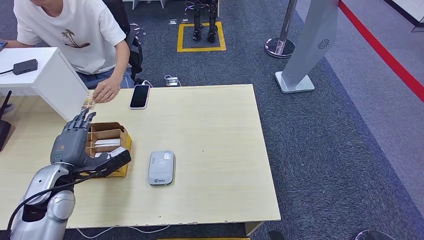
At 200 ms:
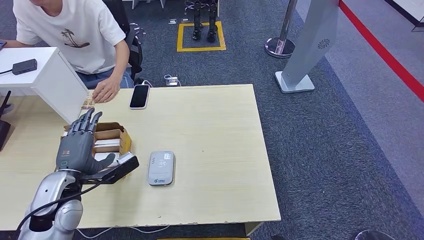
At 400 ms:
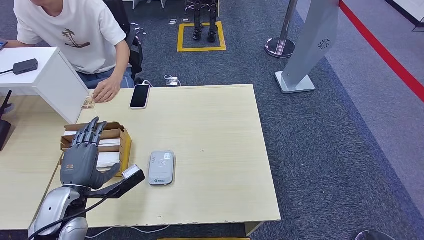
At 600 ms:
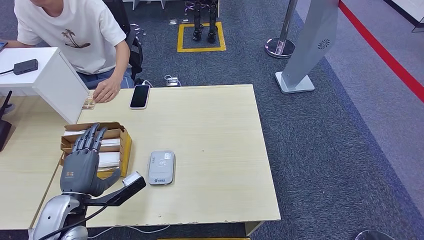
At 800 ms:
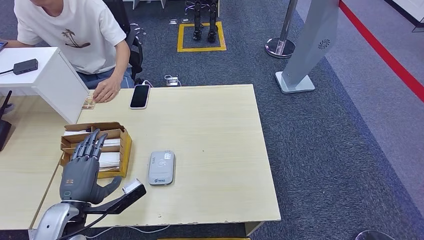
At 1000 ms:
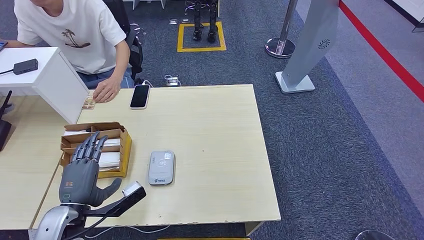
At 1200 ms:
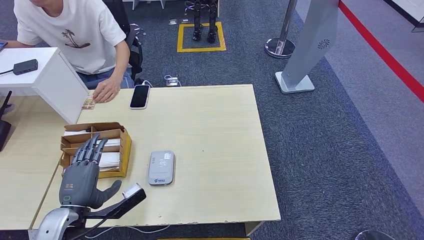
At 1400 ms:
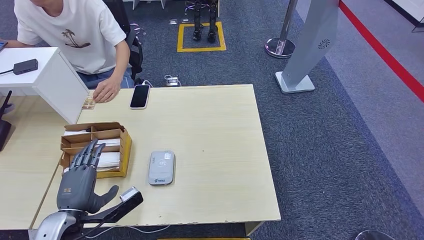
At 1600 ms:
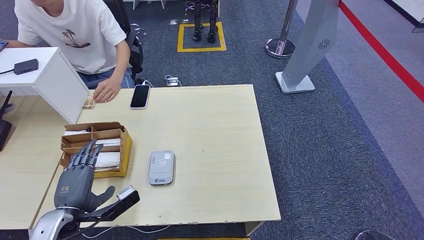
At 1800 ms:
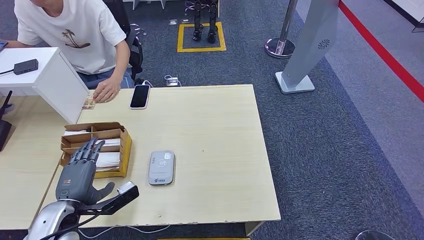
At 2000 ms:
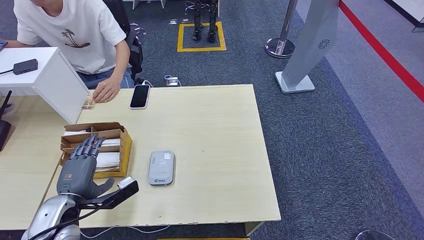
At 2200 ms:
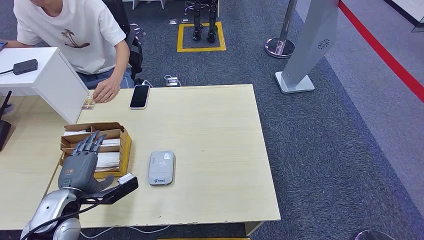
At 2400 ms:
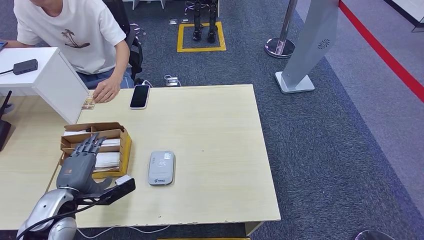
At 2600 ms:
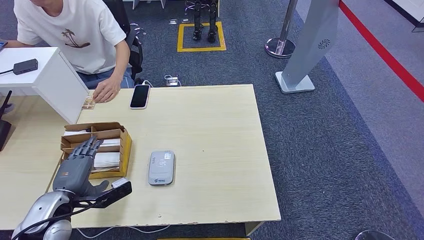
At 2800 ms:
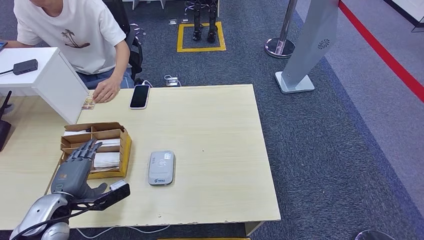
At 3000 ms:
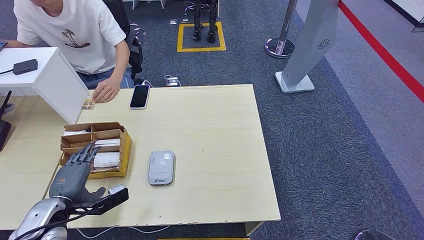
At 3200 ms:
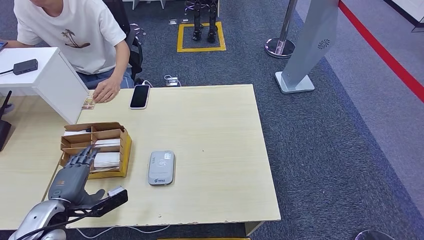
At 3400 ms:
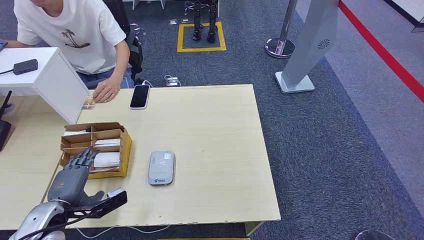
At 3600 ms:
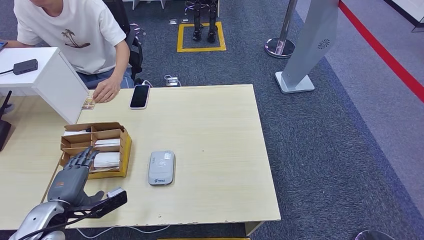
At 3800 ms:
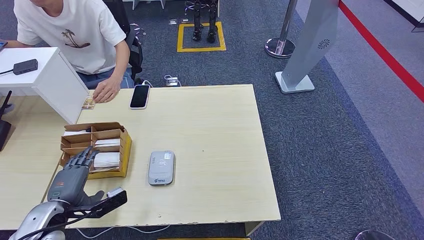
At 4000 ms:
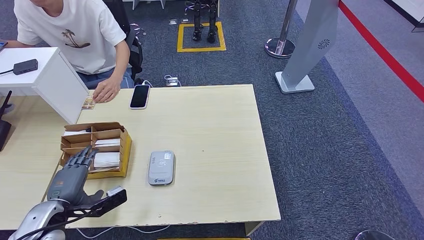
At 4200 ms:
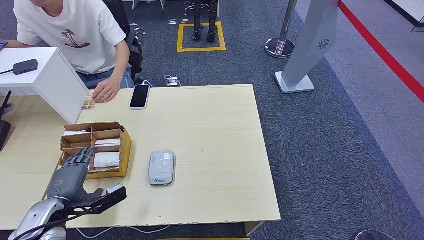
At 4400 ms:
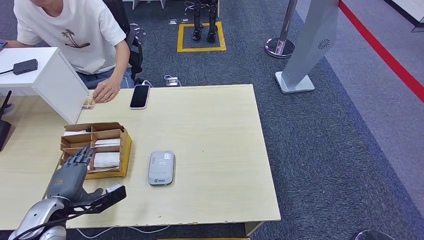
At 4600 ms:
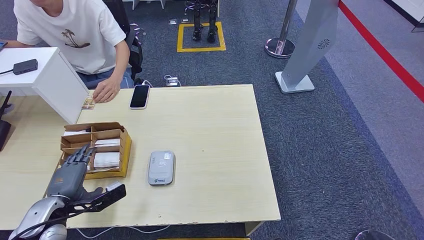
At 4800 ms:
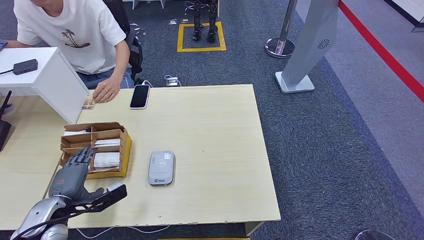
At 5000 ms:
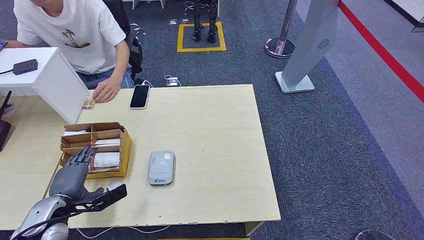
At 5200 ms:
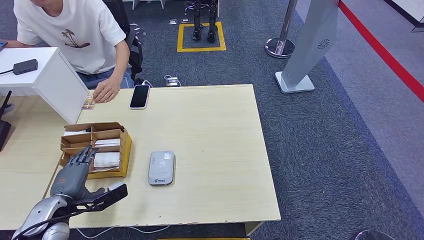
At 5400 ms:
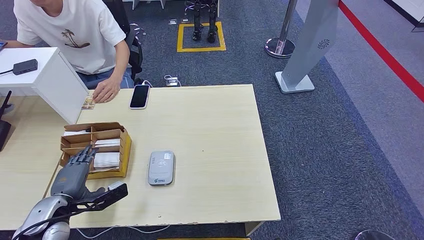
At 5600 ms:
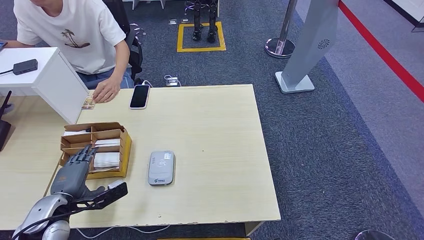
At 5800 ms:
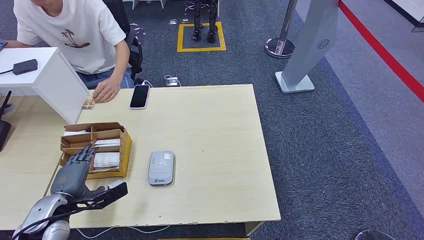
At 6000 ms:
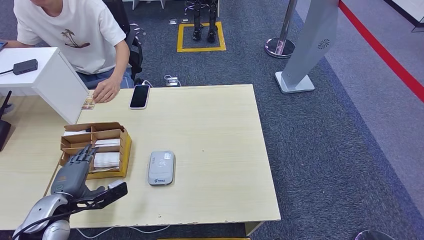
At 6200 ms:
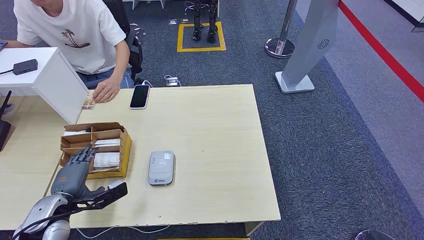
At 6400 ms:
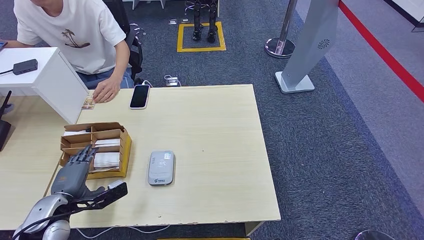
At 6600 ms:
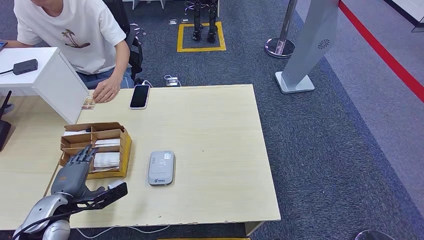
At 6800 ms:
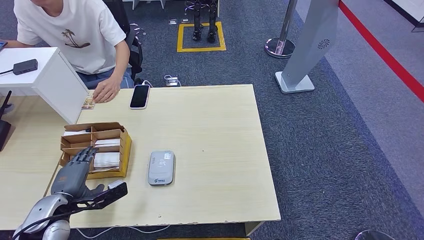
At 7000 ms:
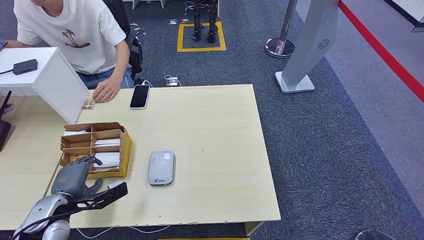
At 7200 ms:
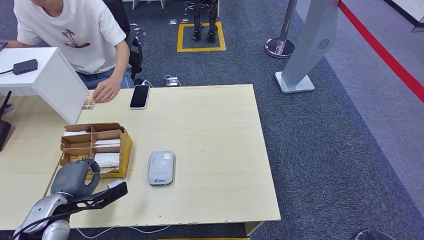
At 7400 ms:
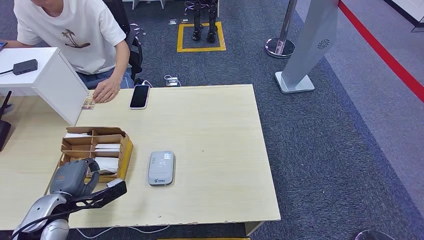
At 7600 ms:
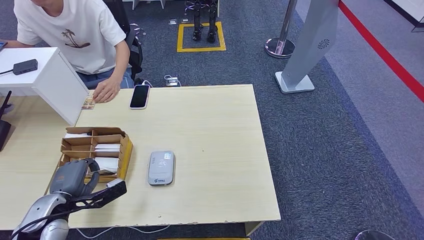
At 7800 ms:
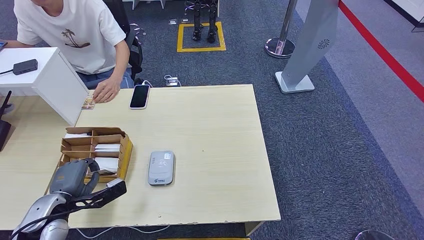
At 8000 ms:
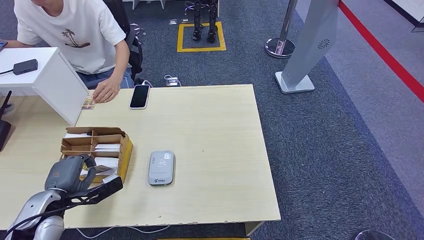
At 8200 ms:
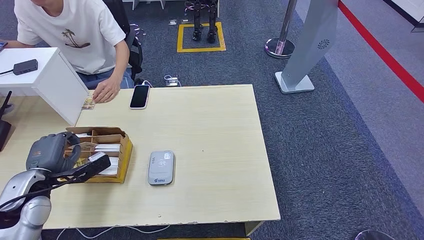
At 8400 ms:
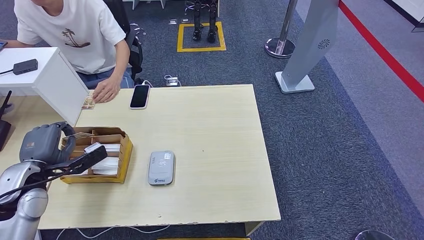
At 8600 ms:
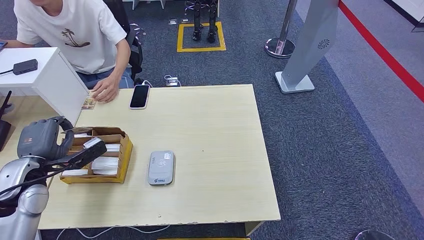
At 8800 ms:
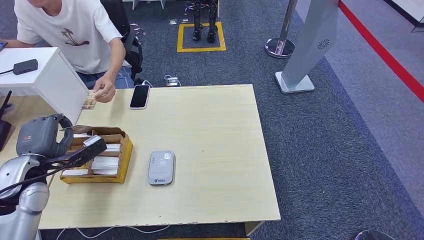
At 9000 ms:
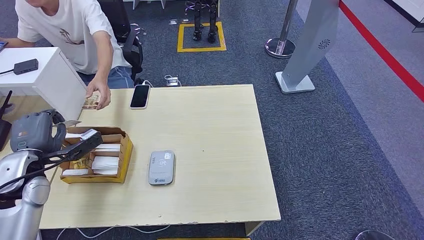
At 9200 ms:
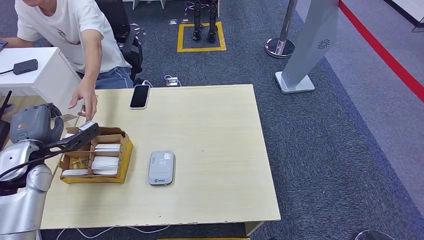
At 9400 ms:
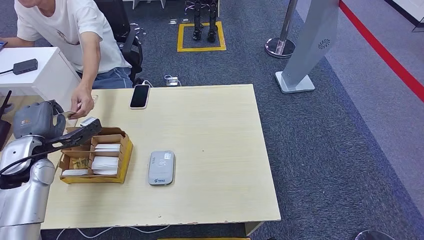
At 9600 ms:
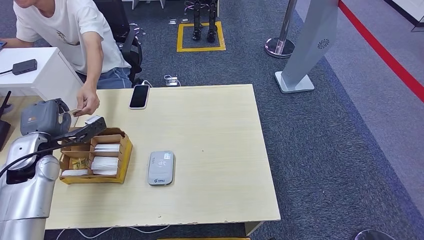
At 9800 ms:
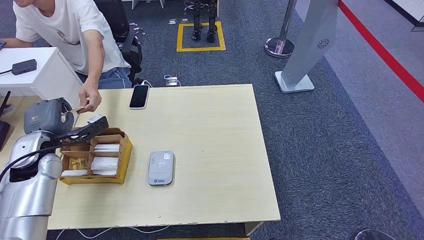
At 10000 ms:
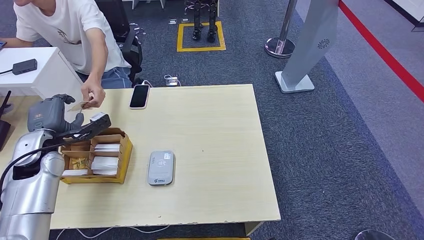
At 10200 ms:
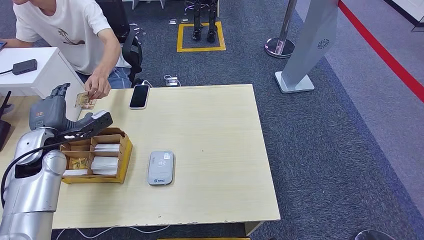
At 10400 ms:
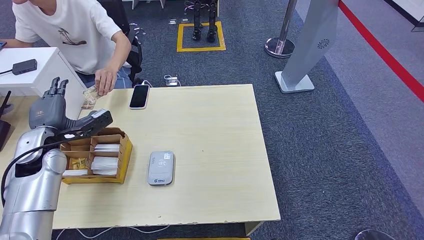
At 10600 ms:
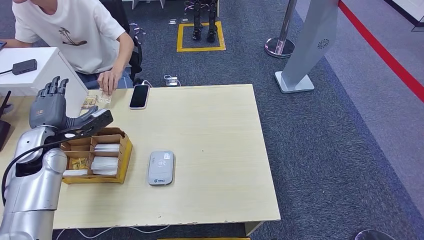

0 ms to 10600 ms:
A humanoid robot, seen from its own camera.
Step, 0 ms to 8800 ms: Pick up the room key from the key card box.
Step, 9000 ms to 10600 ms: Hand the room key to the person.
0 ms to 1600 ms: The left hand moves backward, some 10 cm.
1600 ms to 3000 ms: The left hand changes place by roughly 5 cm.
3000 ms to 4600 ms: The hands make only small movements.
4600 ms to 7600 ms: Both hands stay about where they are.
7600 ms to 9000 ms: The left hand heads upward and forward, covering roughly 10 cm.
9000 ms to 10600 ms: The left hand shifts about 5 cm forward.
